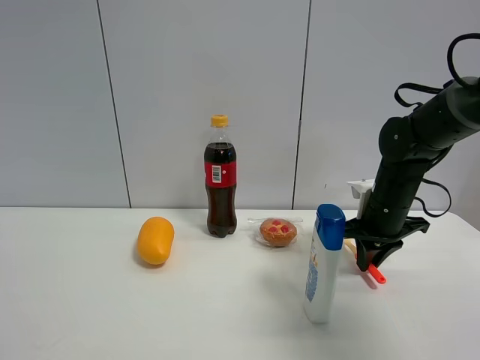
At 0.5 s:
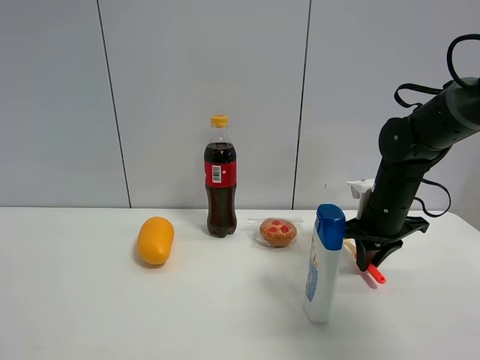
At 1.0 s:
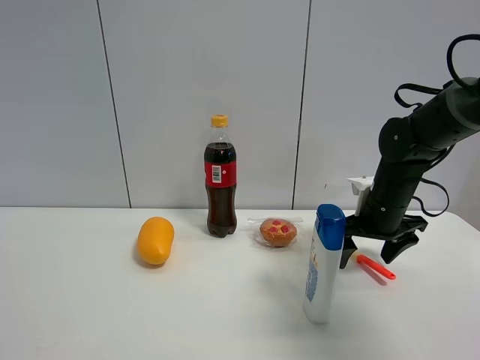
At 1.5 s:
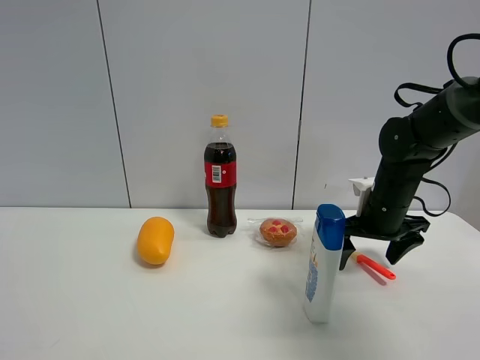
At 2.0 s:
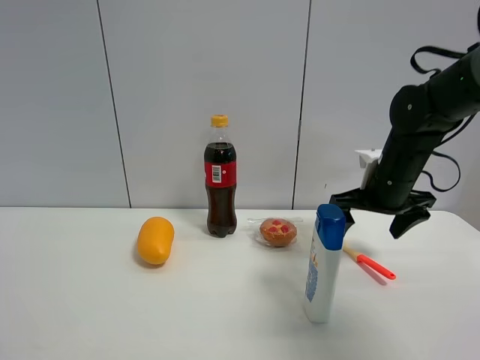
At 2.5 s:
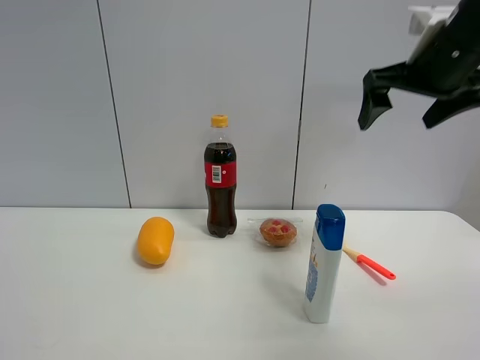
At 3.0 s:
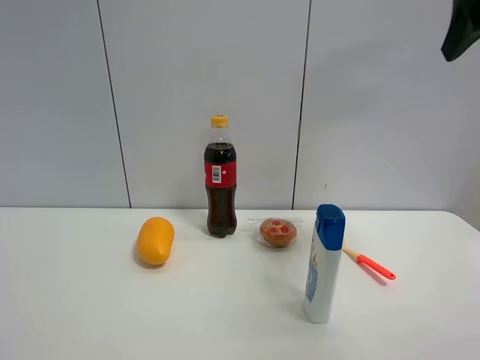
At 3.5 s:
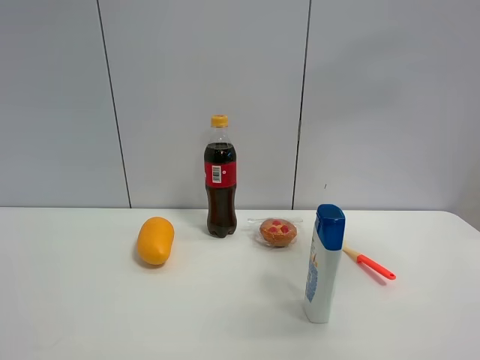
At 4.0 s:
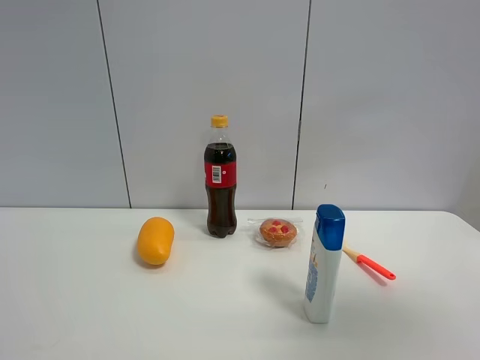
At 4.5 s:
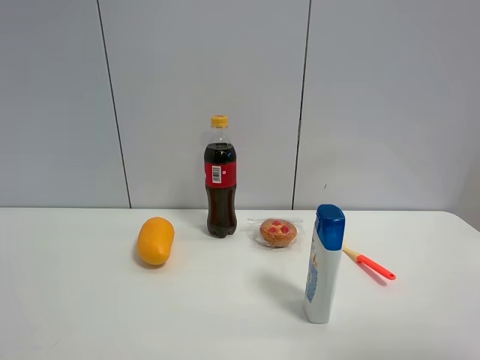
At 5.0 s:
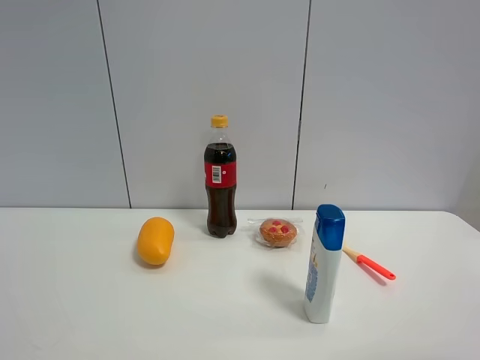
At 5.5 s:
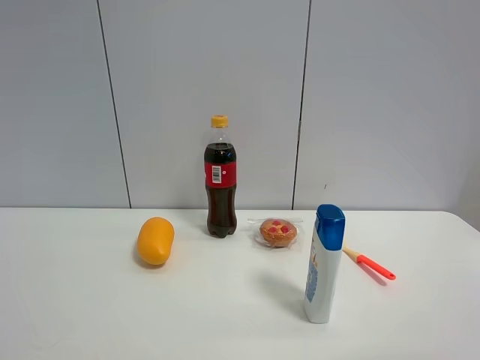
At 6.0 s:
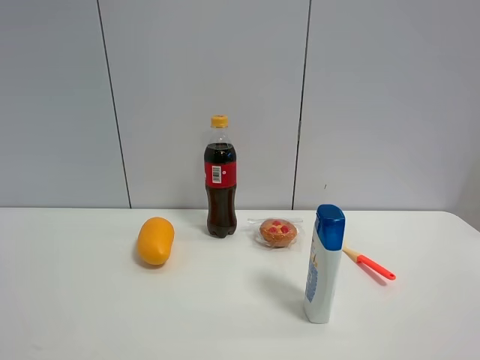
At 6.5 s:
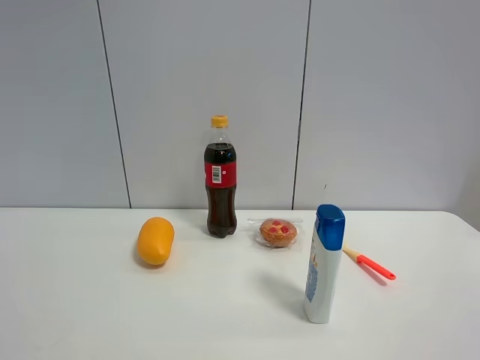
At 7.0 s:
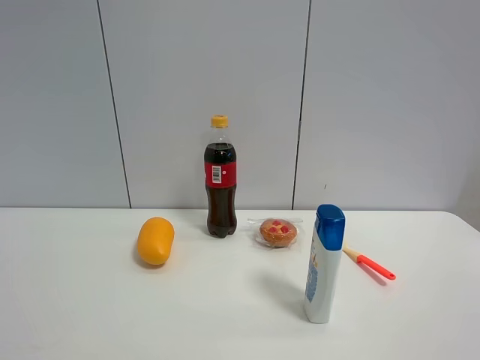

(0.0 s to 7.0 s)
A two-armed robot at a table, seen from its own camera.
Task of the whole recording: the gripper move the object.
0.0 s - 2.0 s: The right gripper is displaced upward by approximately 5 cm, and opens its fingers.
2.0 s - 3.5 s: The right gripper travels upward and backward by about 35 cm.
3.5 s - 5.0 s: The right gripper travels backward and downward by some 25 cm.

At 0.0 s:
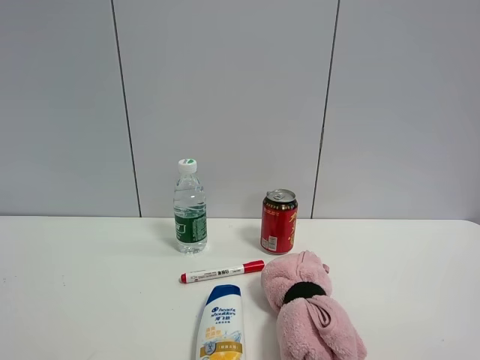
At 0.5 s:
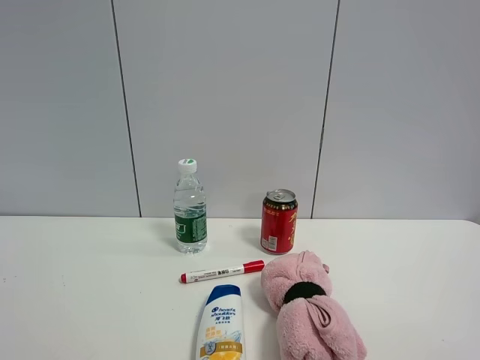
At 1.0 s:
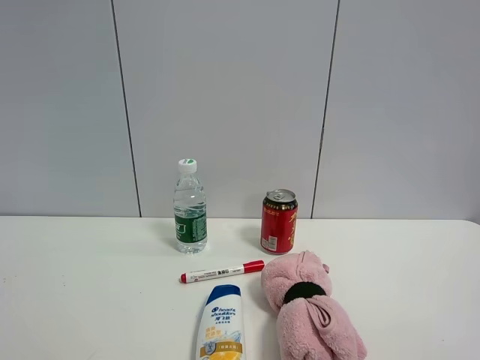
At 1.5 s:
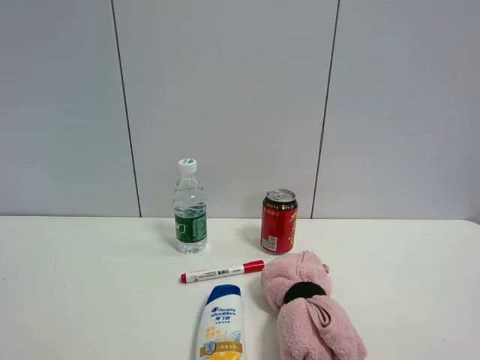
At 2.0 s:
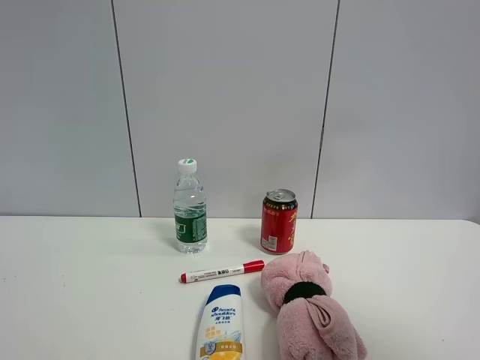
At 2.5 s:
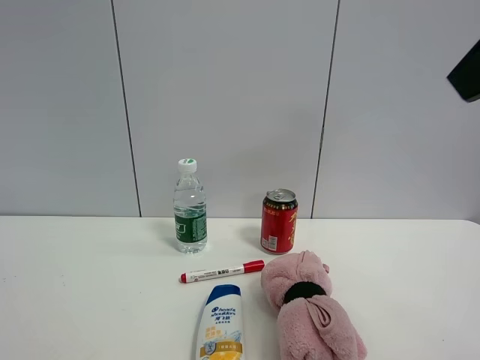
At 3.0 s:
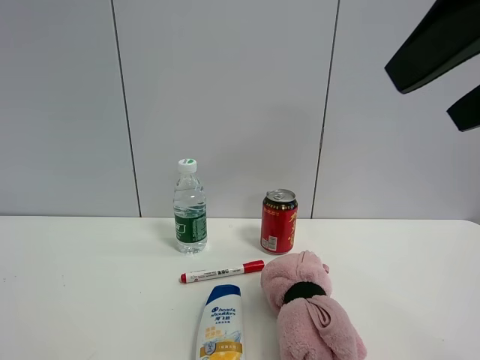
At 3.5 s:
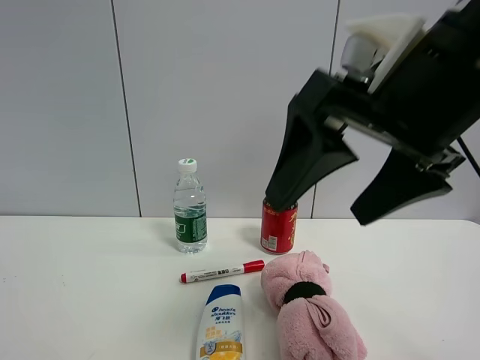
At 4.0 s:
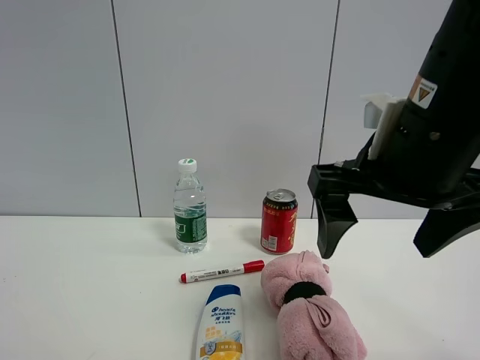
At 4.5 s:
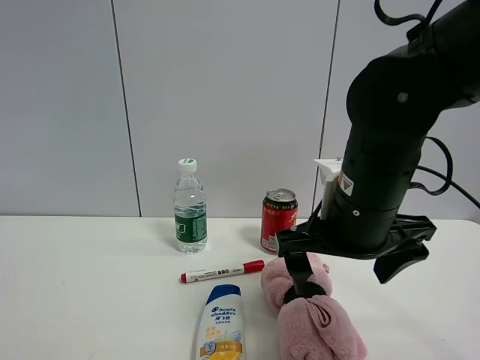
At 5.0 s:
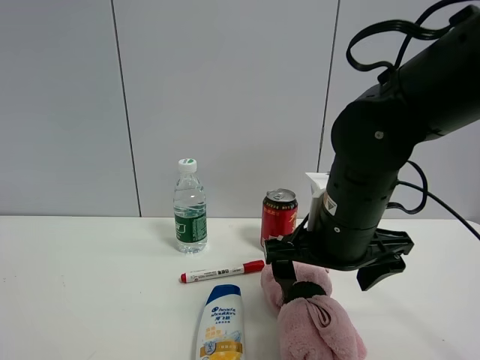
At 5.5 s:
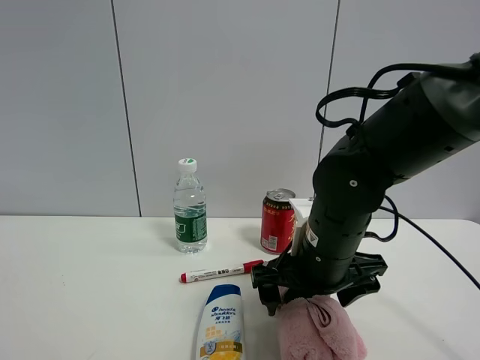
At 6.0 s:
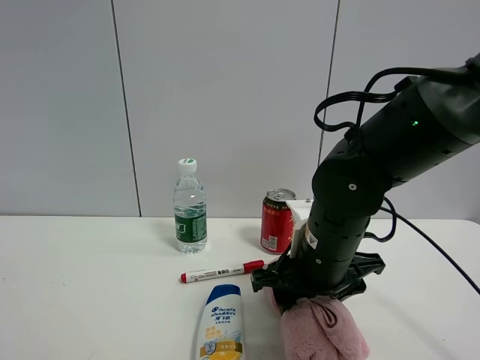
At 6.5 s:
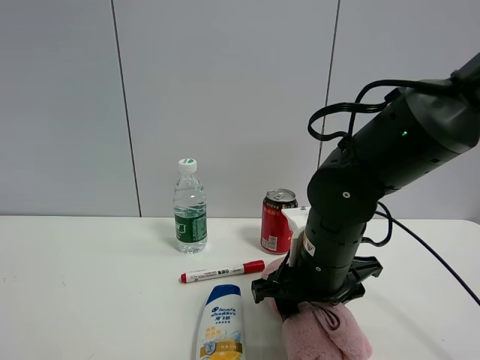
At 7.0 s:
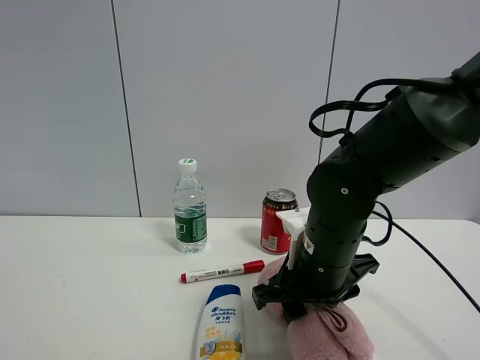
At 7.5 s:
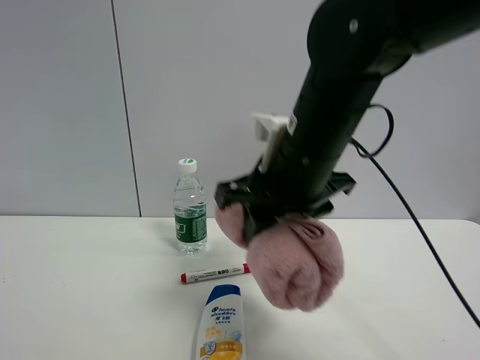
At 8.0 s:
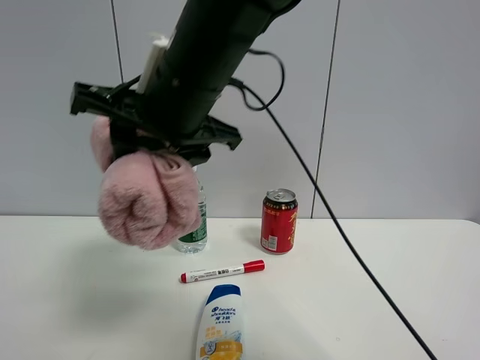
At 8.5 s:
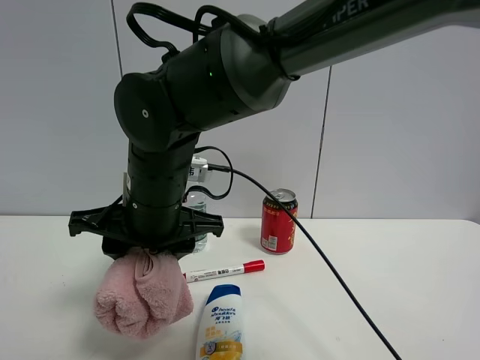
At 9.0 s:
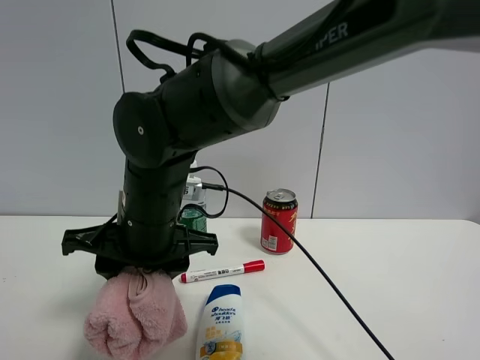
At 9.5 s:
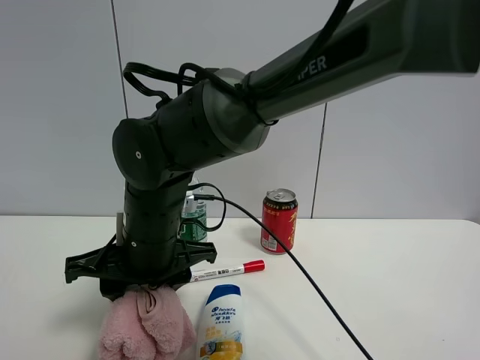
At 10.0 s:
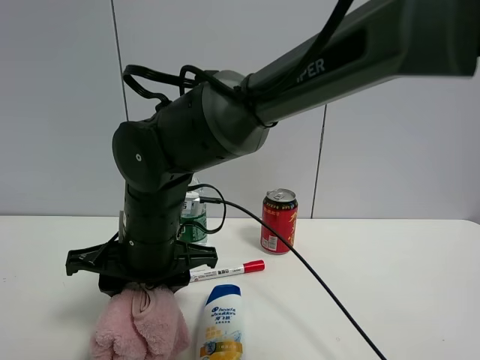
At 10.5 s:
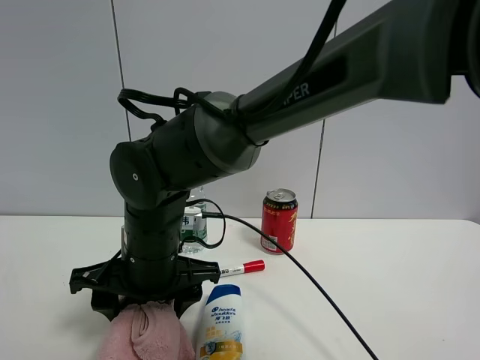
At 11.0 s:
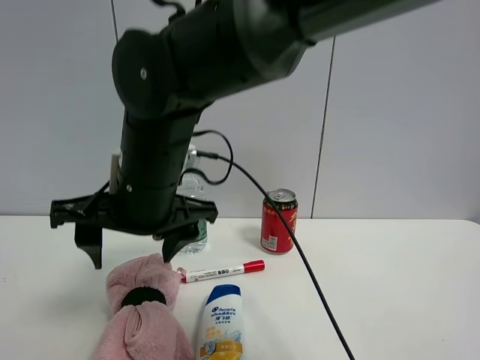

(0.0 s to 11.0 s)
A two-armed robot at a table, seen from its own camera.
Task of the whole recording: the gripper move the object.
Step, 0.0 s - 7.0 s: Grasp the pink towel with the right gripper.
Step, 7.5 s - 10.5 s: Place the pink towel on the table with the right gripper.
0.0 s - 2.0 s: The right gripper heads upward and forward, covering approximately 15 cm.
2.0 s - 3.5 s: The right gripper shifts approximately 25 cm to the left, forward and downward.
3.5 s - 5.5 s: The right gripper goes some 20 cm downward and forward.
5.5 s - 7.5 s: The right gripper is displaced upward by about 15 cm, and closes its fingers.
7.5 s - 9.0 s: The right gripper heads to the left and downward, covering some 15 cm.
9.0 s - 11.0 s: The right gripper heads upward, covering approximately 5 cm, and opens its fingers.

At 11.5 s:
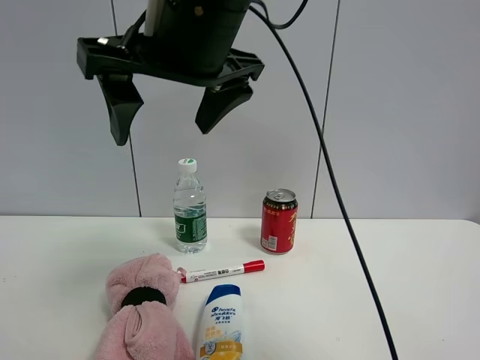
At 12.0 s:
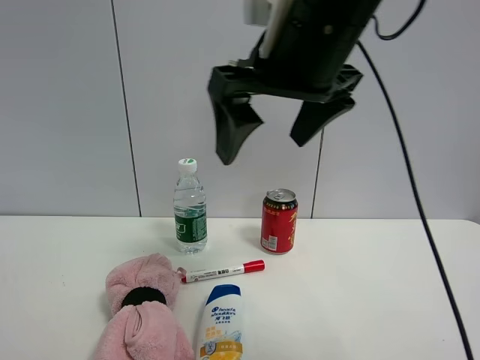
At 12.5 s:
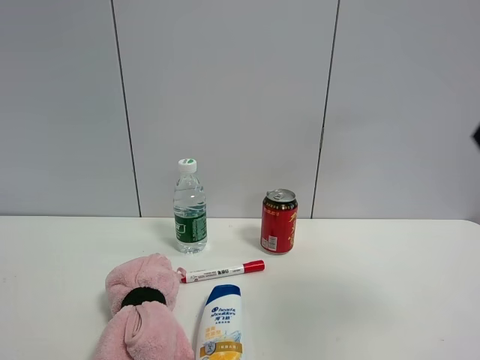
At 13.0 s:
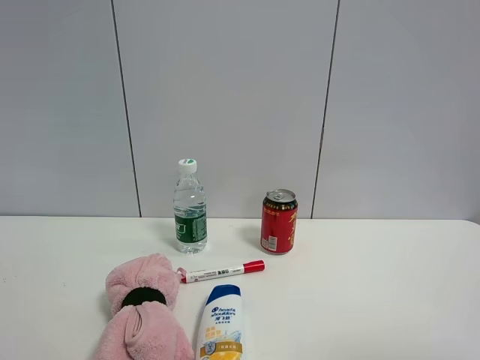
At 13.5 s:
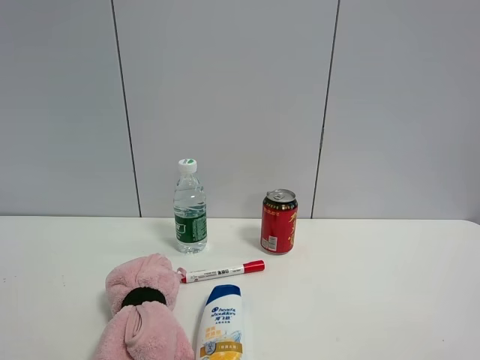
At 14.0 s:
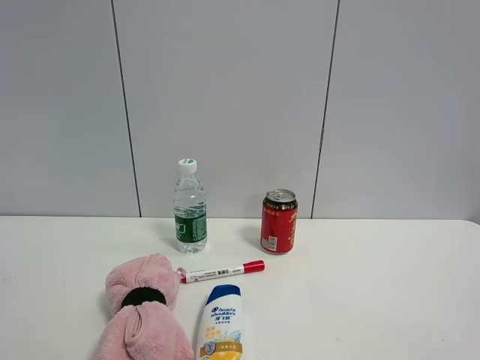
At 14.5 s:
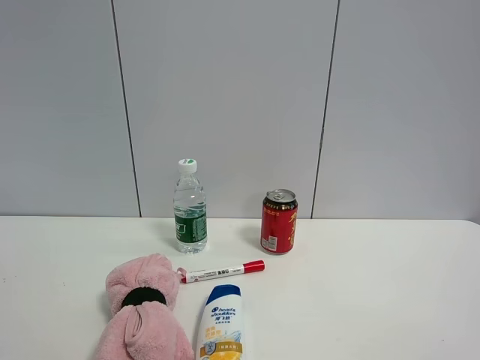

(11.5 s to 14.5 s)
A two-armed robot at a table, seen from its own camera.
Task of the whole recording: the gripper move the object.
11.5 s - 13.0 s: The right gripper heads to the right and backward, covering some 40 cm.

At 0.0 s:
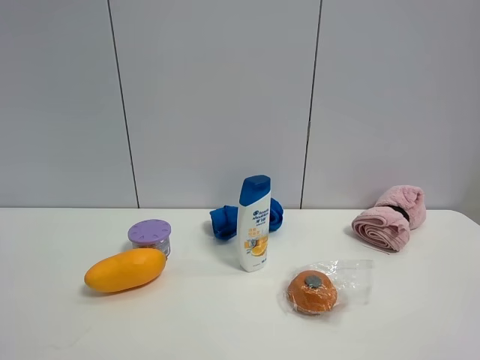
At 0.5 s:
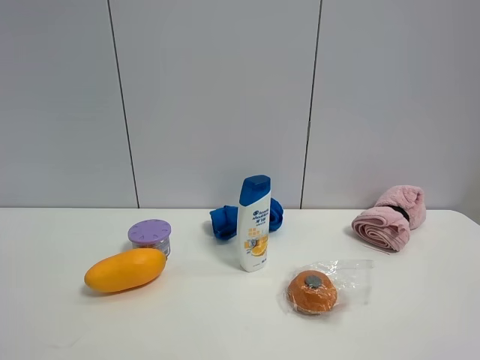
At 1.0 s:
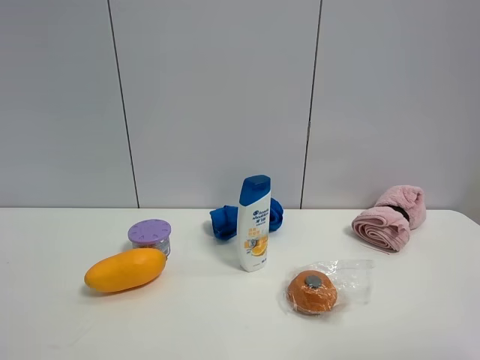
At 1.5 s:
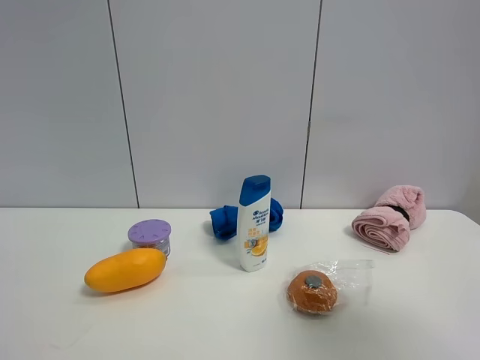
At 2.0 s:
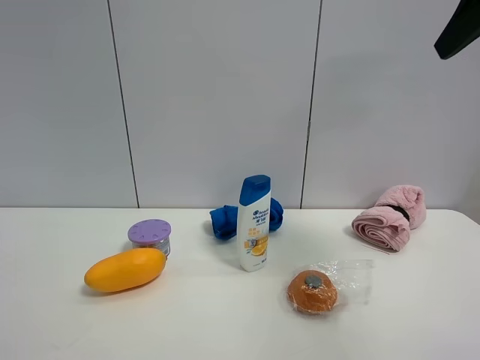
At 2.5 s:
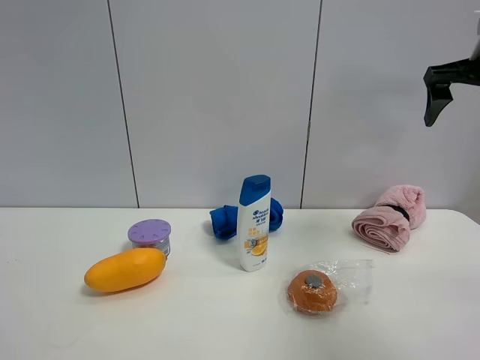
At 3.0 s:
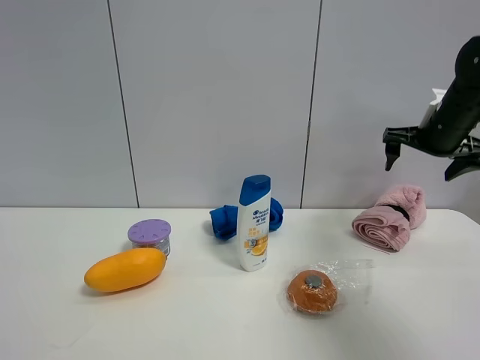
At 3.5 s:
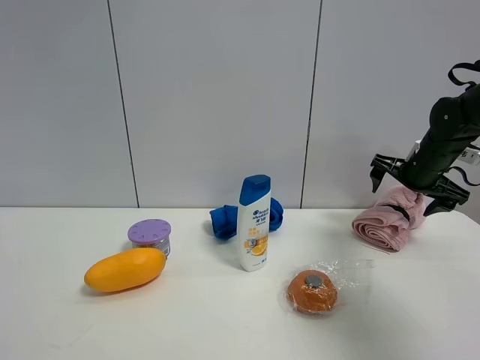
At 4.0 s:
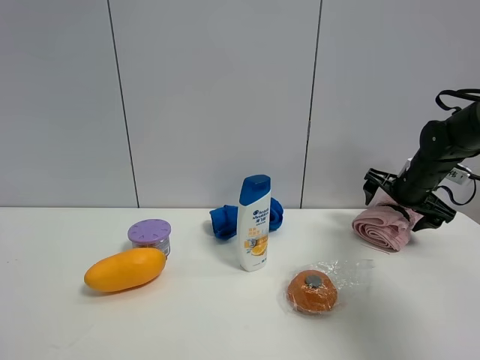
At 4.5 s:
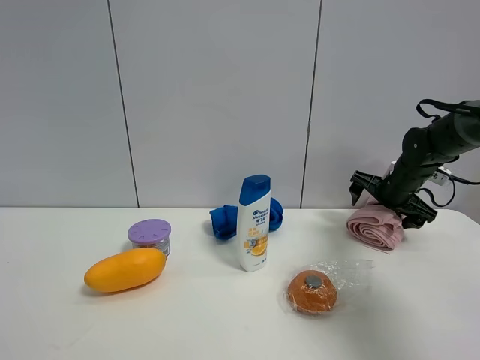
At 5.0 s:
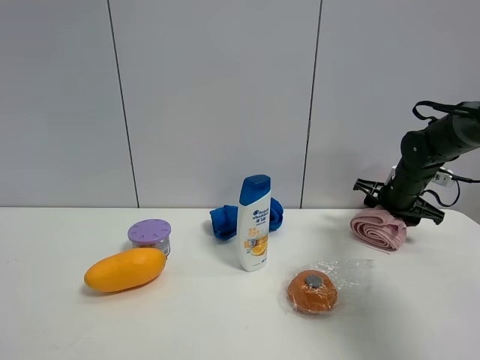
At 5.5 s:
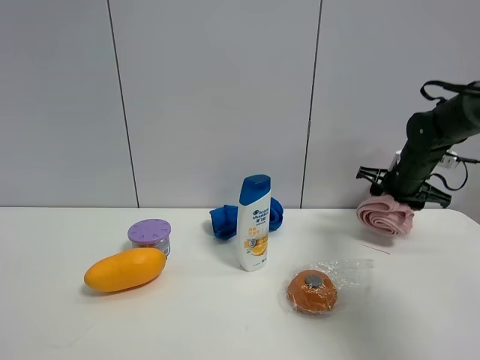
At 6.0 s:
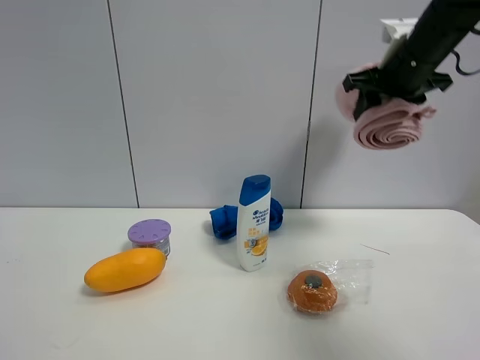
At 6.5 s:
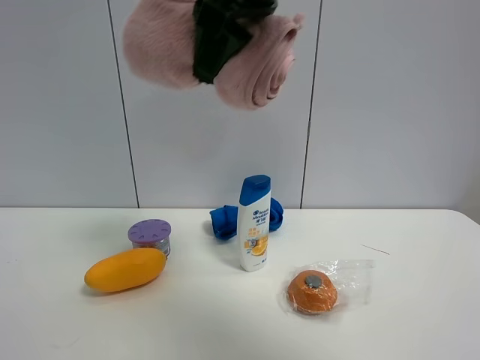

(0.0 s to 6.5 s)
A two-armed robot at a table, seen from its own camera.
Task of the whole recording: the gripper move the object.
Step, 0.0 s - 5.0 s: Grasp the pink towel with the right gripper.
0.0 s - 2.0 s: The right gripper travels forward and upward by about 30 cm.
2.0 s - 4.5 s: The right gripper shifts approximately 35 cm downward and forward.
4.5 s - 6.5 s: The right gripper is displaced to the left, upward and backward by approximately 50 cm, and closes its fingers.
